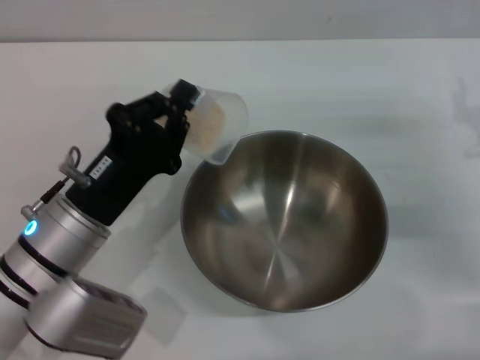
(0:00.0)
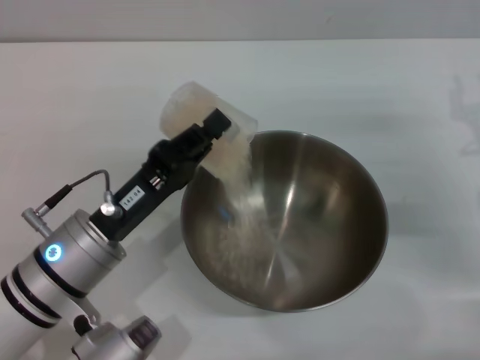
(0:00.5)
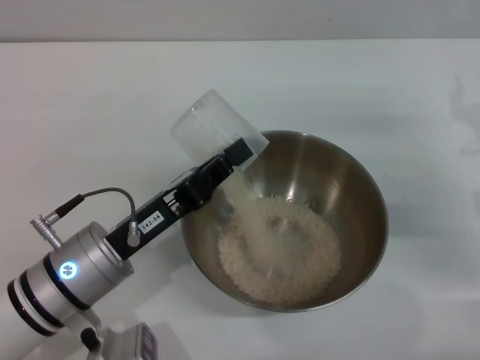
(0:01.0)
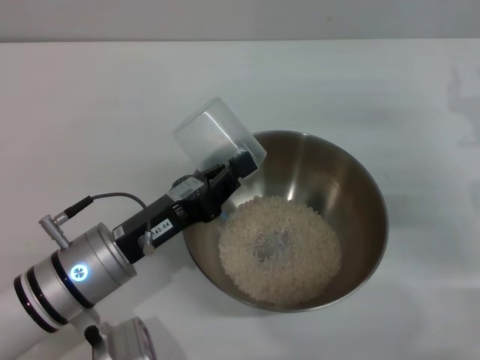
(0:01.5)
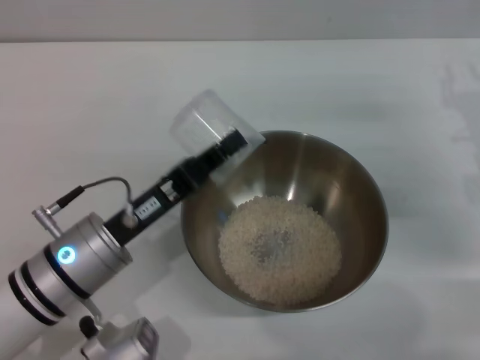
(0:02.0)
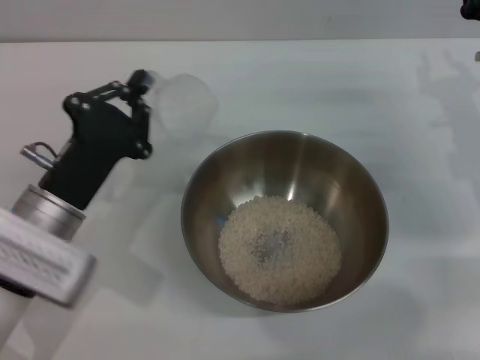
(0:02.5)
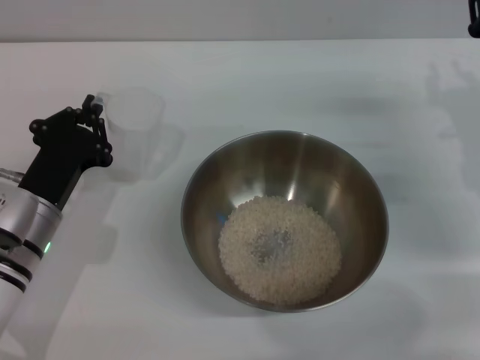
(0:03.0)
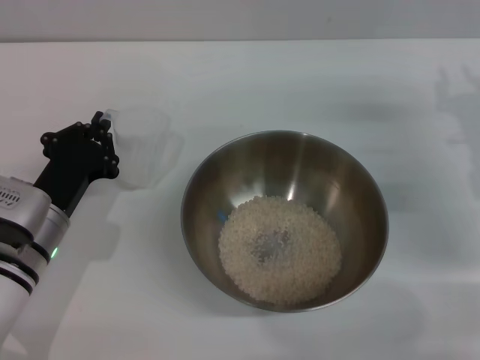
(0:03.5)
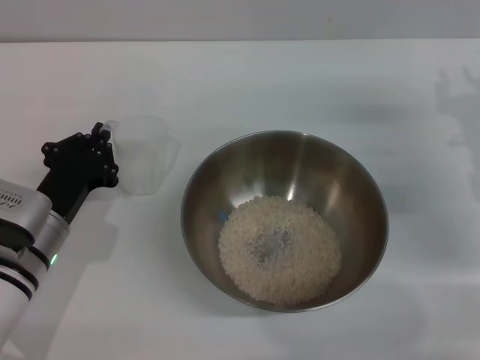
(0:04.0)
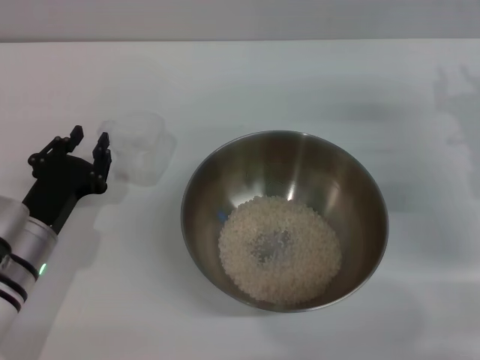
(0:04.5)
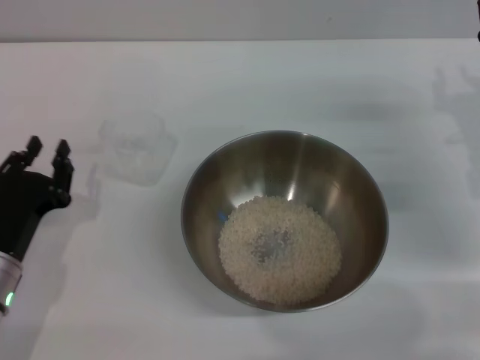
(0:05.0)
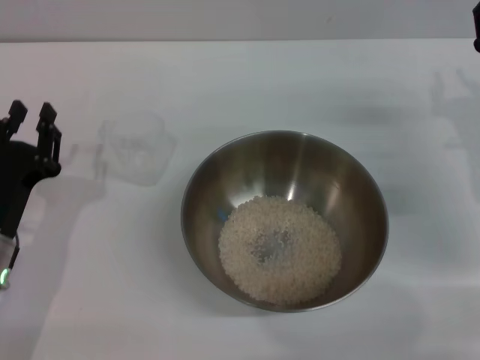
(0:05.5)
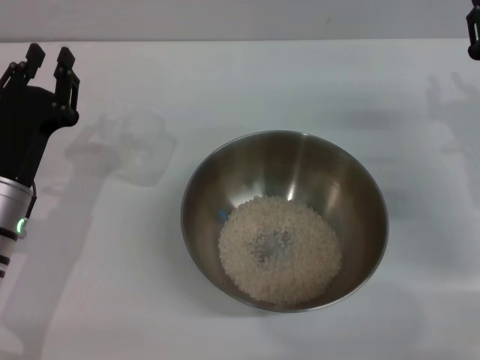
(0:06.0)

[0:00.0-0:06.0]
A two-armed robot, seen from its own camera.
Task of the whole recording: Place the bowl in the middle of the table with one hand and pour the rice from the grain cup into it with the other hand.
Step, 0:00.0 to 0:02.0: Pour the rice from the cup into the bowl with the left gripper.
Step, 0:02.5 to 0:05.0: Place the cup on the table with the left gripper.
0:02.0 to 0:04.0: The left gripper is displaced to the left by about 5 cm.
0:04.0 to 0:06.0: The left gripper opens its fingers.
